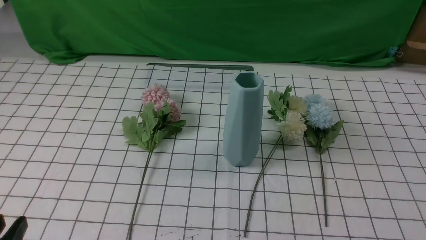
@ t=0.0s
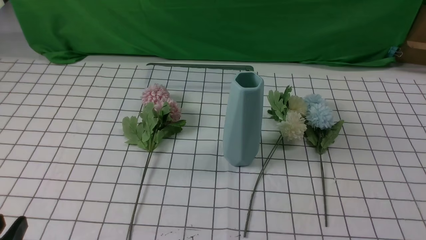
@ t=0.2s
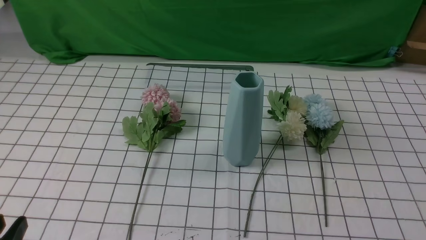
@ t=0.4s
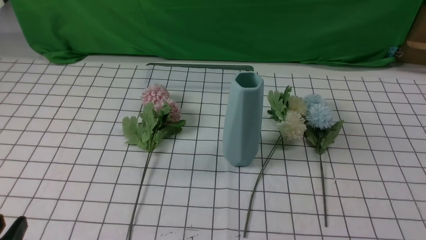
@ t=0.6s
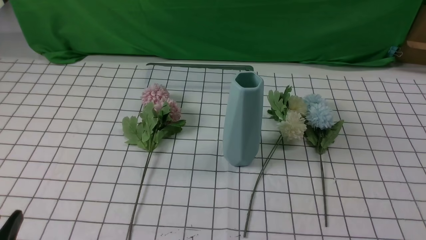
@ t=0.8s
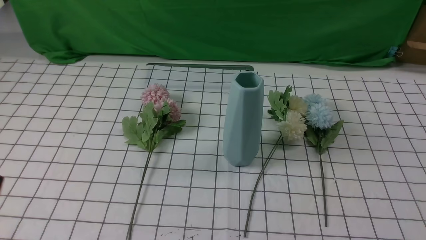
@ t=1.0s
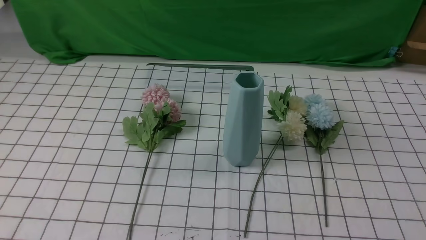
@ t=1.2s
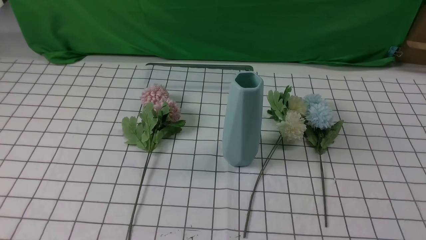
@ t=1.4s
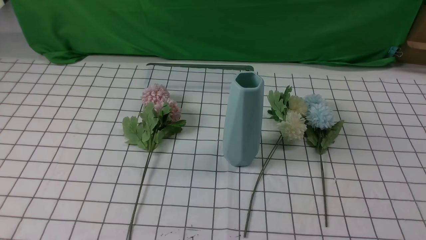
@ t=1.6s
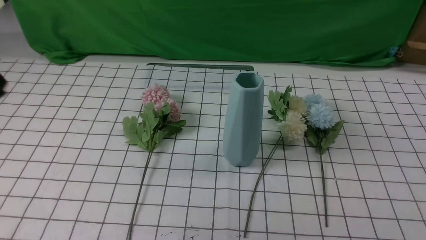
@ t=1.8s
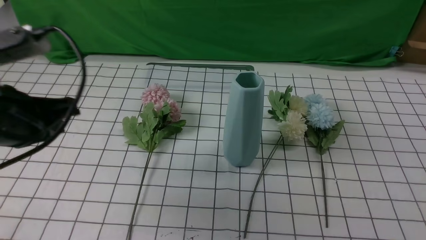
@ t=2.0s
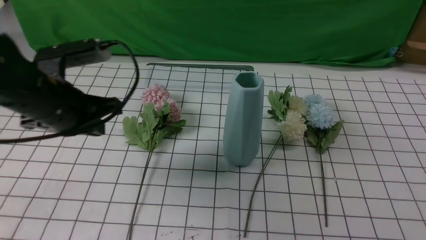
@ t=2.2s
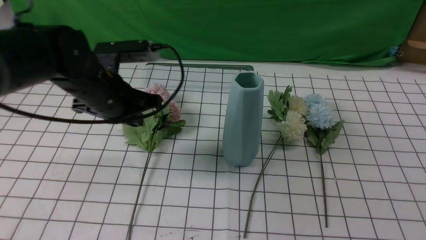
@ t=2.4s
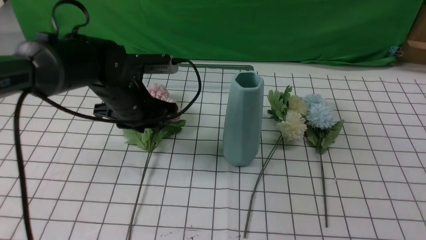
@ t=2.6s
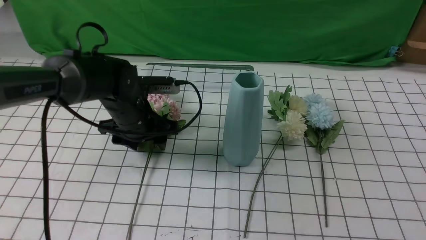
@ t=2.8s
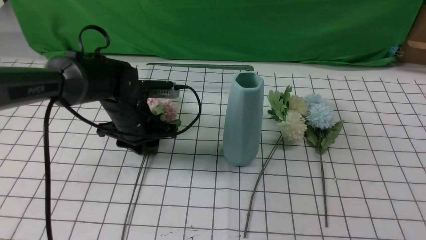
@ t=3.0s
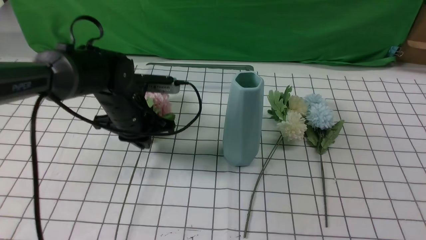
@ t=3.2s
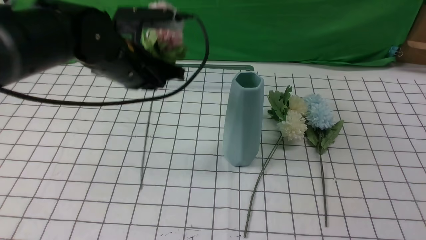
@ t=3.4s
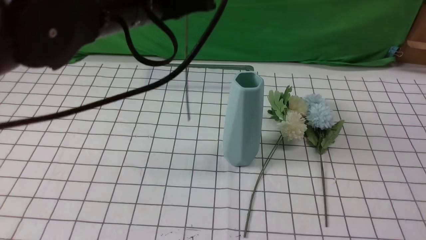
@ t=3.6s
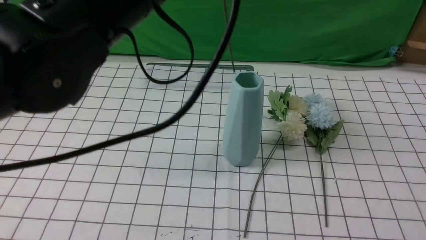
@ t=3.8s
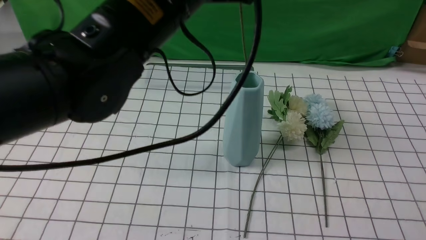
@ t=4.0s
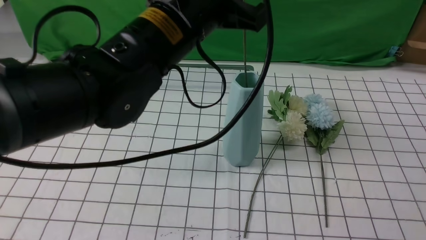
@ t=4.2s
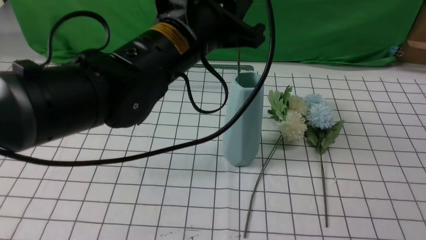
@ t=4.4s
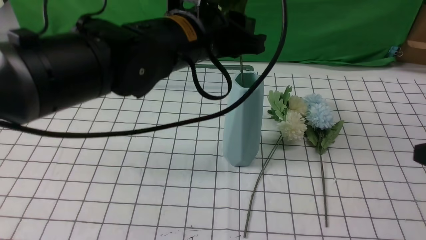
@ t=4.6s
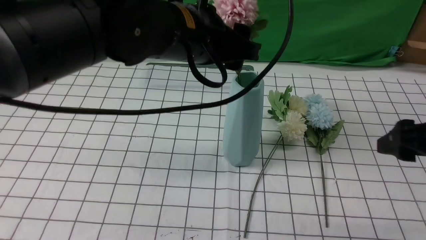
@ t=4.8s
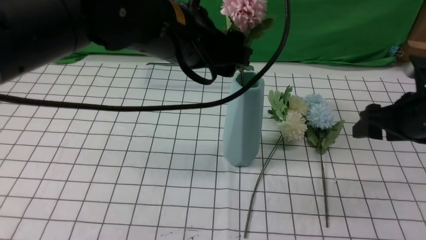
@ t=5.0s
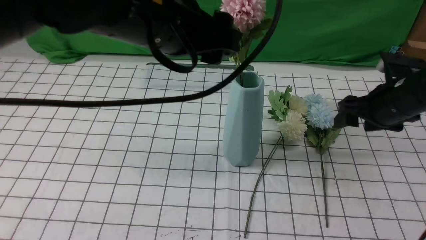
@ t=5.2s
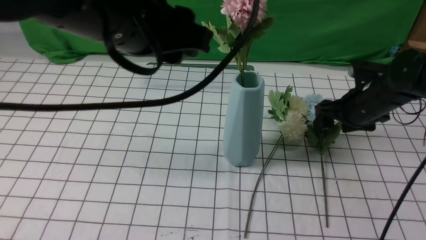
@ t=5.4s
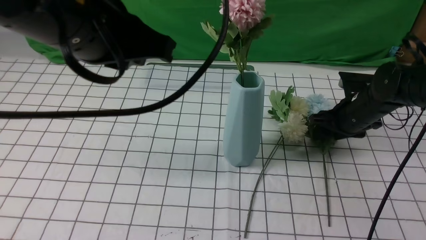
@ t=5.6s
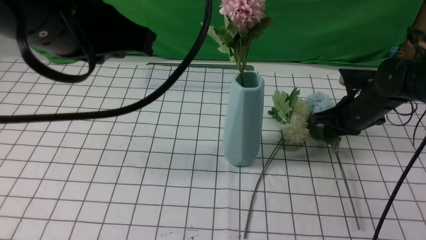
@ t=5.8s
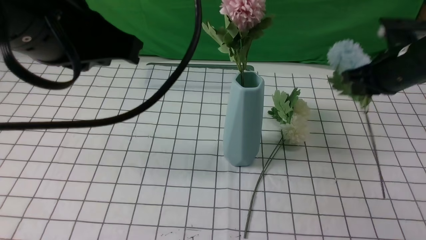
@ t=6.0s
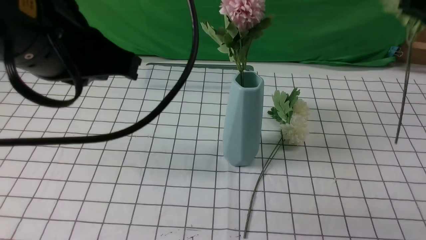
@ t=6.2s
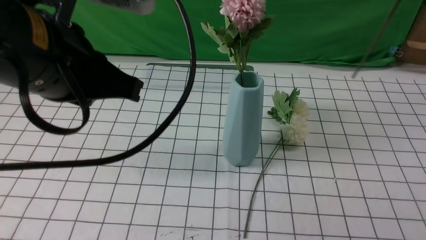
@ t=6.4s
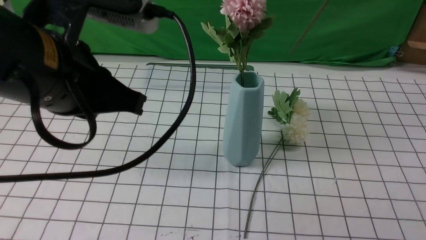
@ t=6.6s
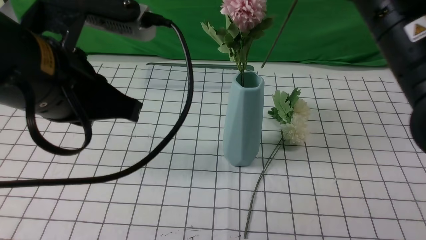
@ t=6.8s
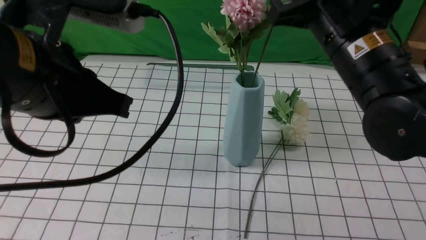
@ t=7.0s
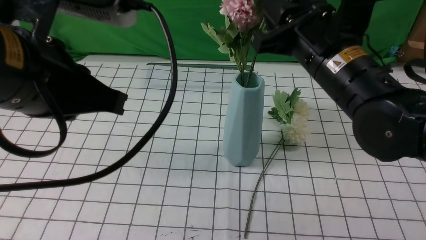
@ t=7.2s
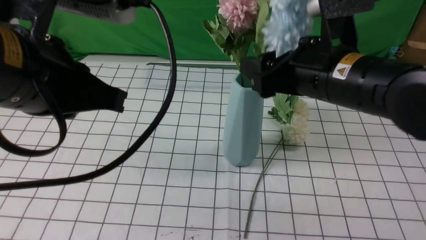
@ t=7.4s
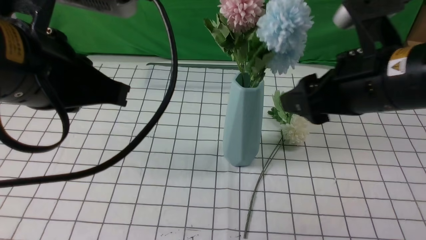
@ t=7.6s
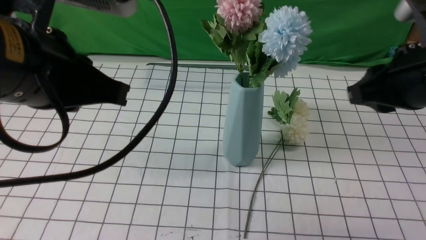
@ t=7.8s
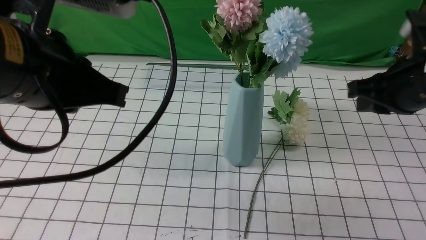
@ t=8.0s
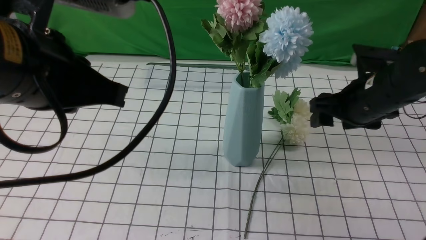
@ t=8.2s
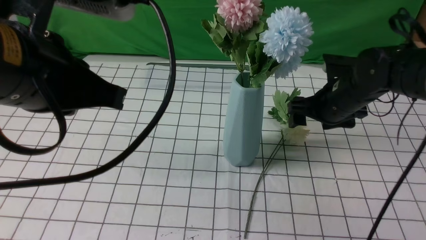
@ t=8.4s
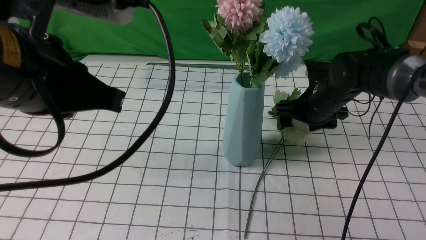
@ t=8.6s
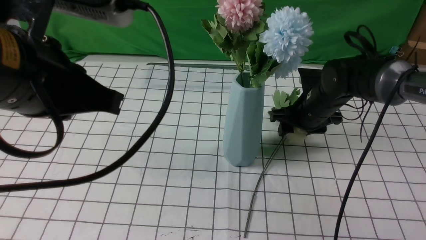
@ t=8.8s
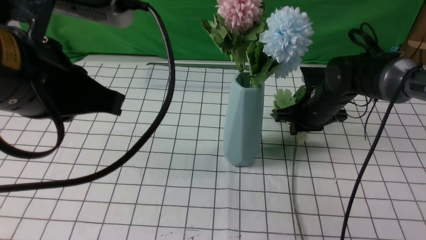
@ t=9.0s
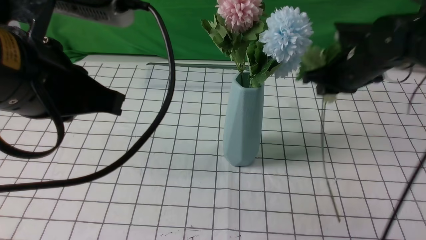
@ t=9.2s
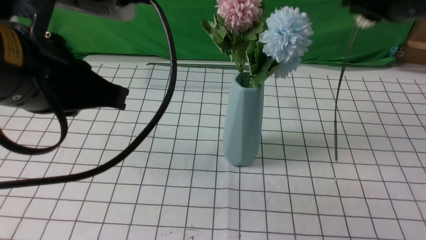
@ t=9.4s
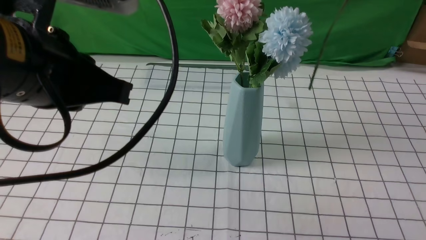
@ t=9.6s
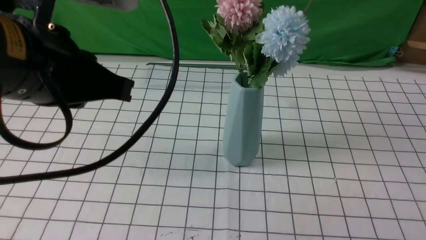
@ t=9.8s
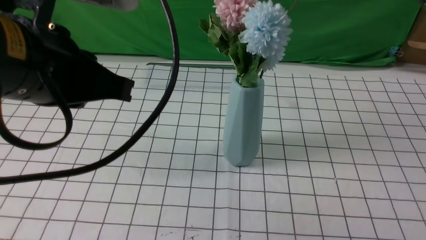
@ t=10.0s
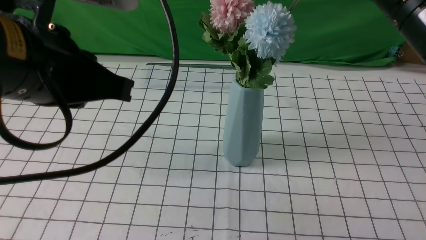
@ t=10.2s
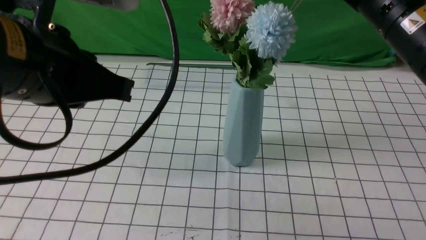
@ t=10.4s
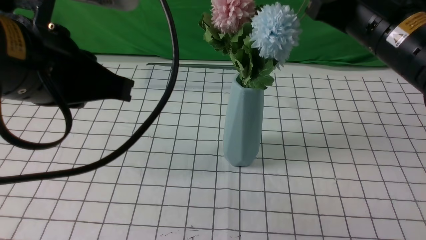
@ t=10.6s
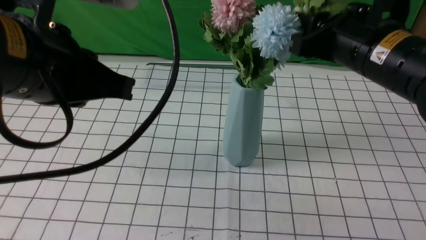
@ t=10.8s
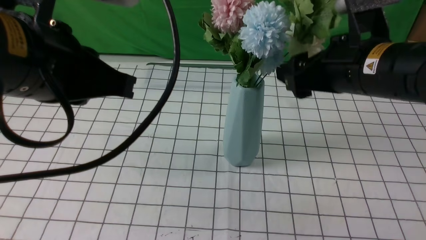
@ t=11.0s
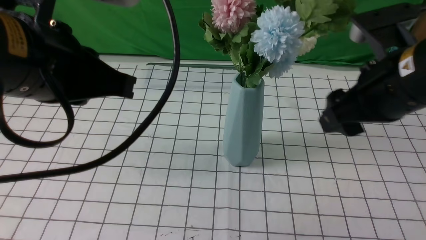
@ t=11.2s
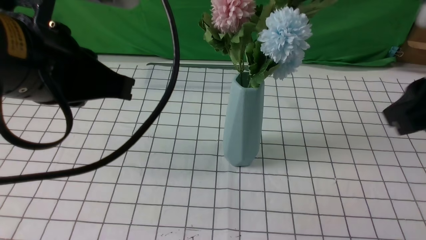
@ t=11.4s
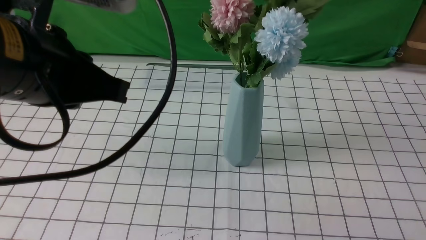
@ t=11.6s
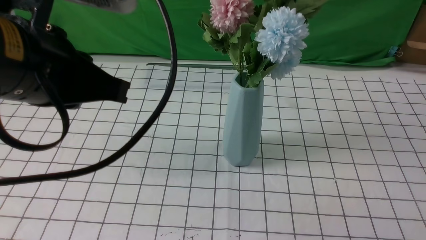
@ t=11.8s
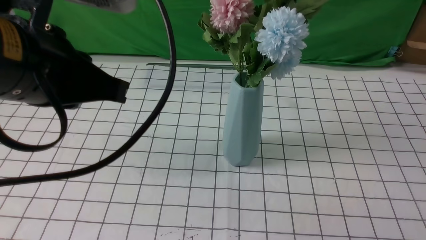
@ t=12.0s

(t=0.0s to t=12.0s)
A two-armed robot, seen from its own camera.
Task of the whole recording: insert the flowers into the vase on the table with the white tablecloth.
Step, t=0.0s - t=3.0s: use the left arm to grab a bunch of fresh flowers.
Step, t=3.2s - t=5.0s: use the left arm to insert the flowers into the vase.
Step, t=5.2s - t=5.8s: use the right arm to grab a bunch of fresh flowers.
Step, t=6.0s - t=7.4s: use the right arm to insert the flowers into the vase.
Step, t=7.6s - t=9.0s: use the right arm to grab a bunch of fresh flowers.
Step, t=9.2s - t=11.0s: use the right arm to insert the flowers into the vase.
t=1.6s - t=3.0s: The left gripper moves forward and downward, about 35 cm, and opens its fingers; the right gripper travels upward and forward by roughly 10 cm.
t=3.0s - t=4.4s: The left gripper shifts about 20 cm upward, to the right and backward.
t=4.4s - t=6.0s: The right gripper goes approximately 25 cm forward, and closes. The left gripper is displaced backward, to the left and upward by about 15 cm, and opens and closes again.
t=6.0s - t=7.6s: The right gripper shifts roughly 15 cm backward and to the left, and opens its fingers.
t=7.6s - t=9.0s: The right gripper heads forward and downward, covering about 25 cm, and closes its fingers.
t=9.0s - t=10.4s: The right gripper heads upward and backward, covering roughly 25 cm.
t=10.4s - t=12.0s: The right gripper goes roughly 30 cm backward and to the right, and opens, then closes again.

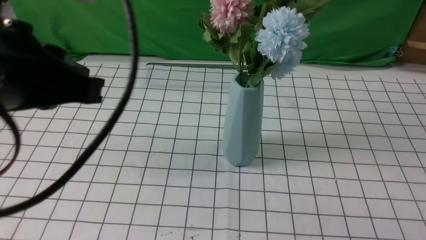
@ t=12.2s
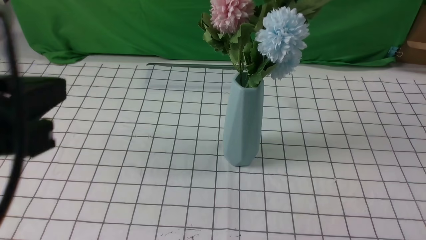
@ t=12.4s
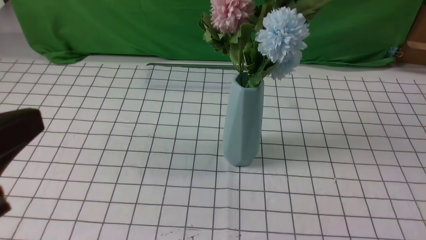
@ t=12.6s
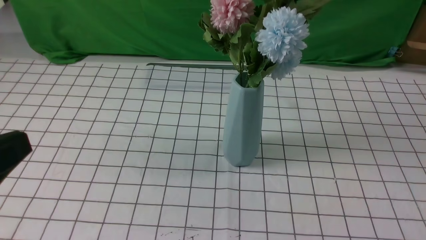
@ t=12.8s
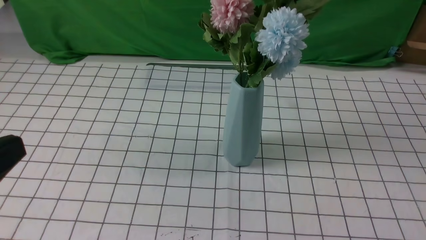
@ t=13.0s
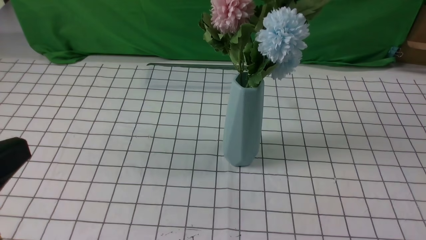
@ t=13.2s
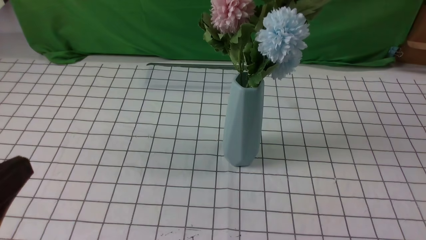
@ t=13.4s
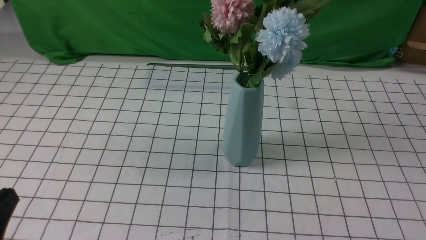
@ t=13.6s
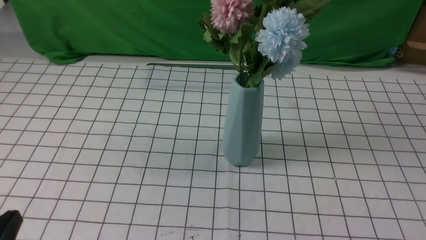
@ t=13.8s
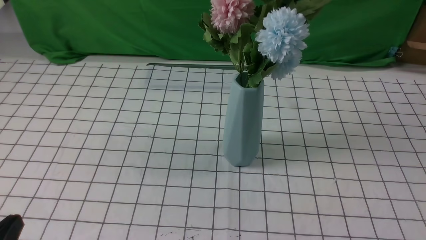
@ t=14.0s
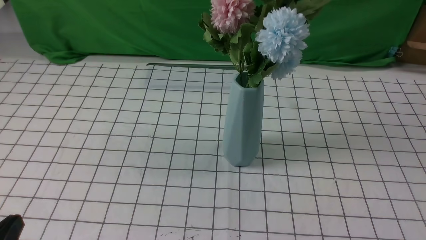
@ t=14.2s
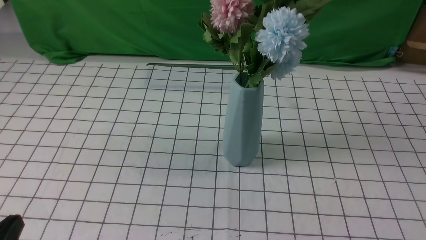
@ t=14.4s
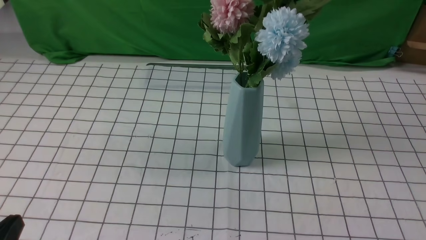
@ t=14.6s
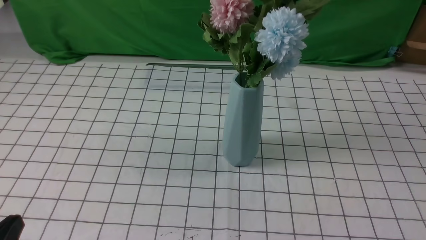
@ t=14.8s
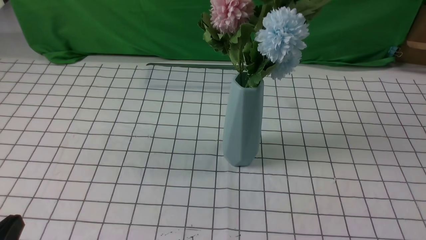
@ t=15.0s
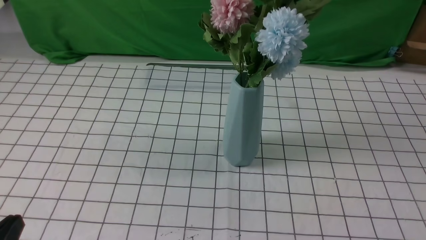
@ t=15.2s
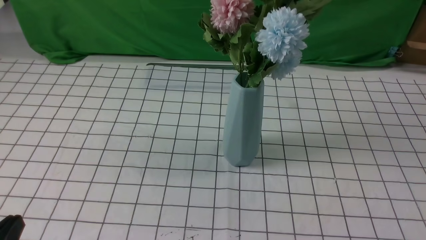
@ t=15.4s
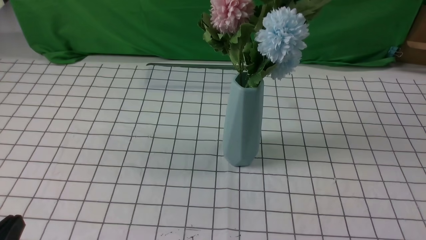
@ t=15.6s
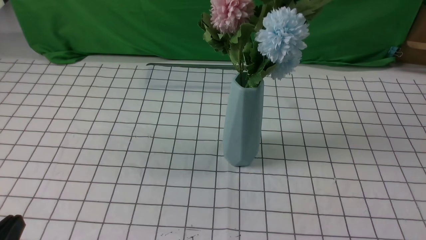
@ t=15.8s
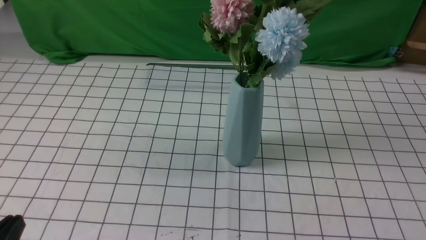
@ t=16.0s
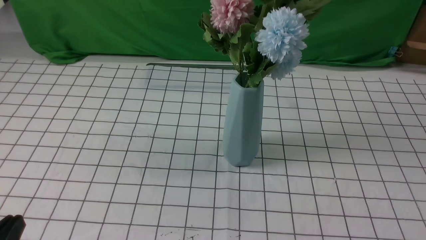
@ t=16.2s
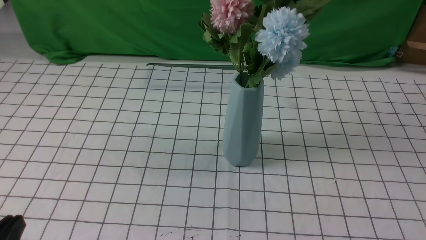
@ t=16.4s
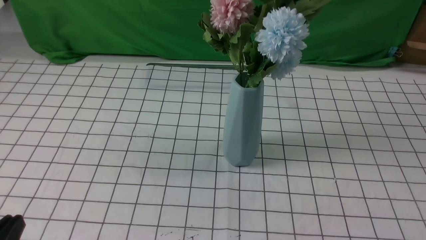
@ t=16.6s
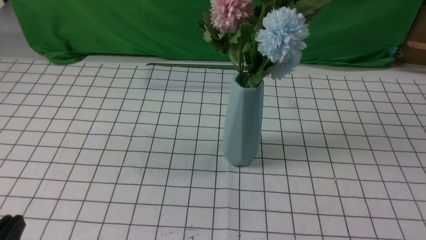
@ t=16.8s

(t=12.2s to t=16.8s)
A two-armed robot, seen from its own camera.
Task of the whole recording: insert the flowers into the vase on the table with the white tablecloth.
t=12.2s - t=13.8s: The left gripper is displaced downward, backward and to the left by roughly 25 cm.
